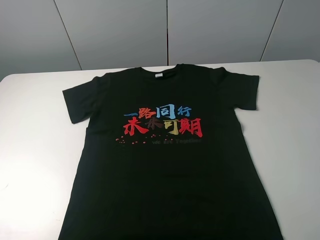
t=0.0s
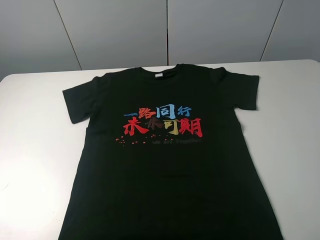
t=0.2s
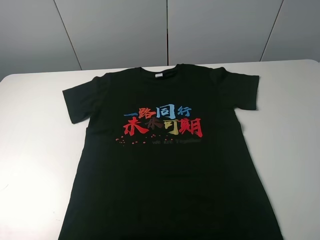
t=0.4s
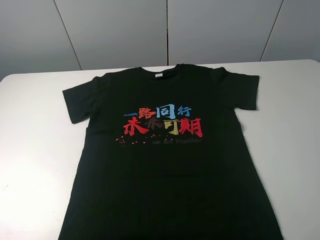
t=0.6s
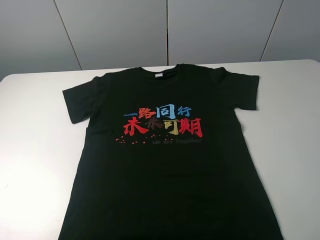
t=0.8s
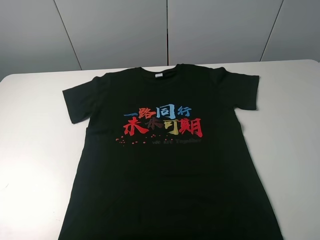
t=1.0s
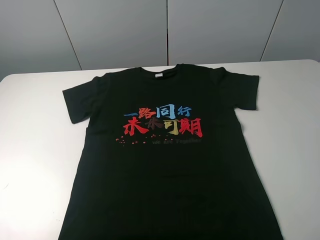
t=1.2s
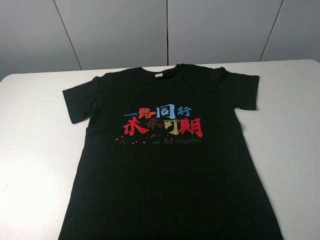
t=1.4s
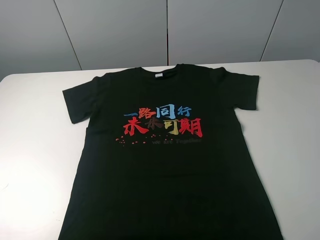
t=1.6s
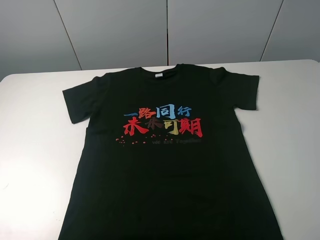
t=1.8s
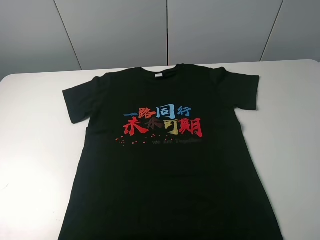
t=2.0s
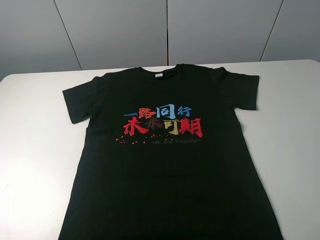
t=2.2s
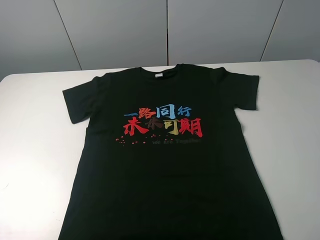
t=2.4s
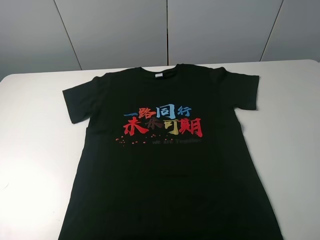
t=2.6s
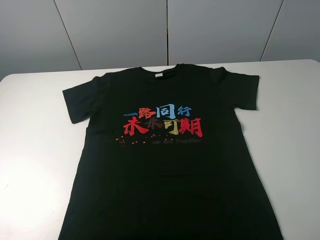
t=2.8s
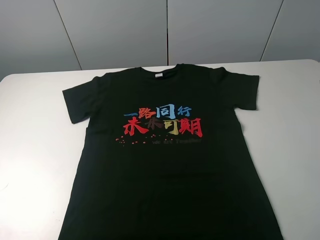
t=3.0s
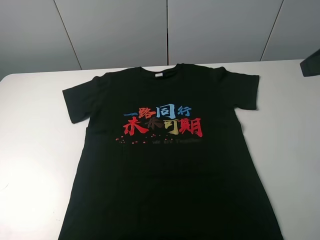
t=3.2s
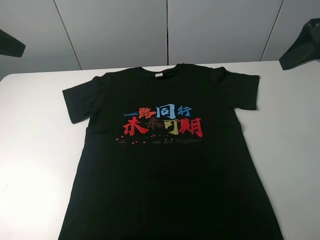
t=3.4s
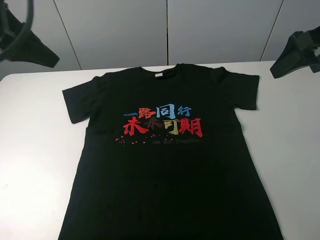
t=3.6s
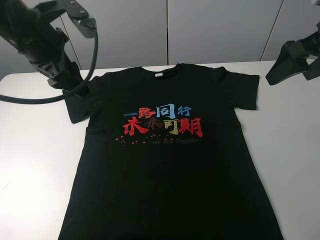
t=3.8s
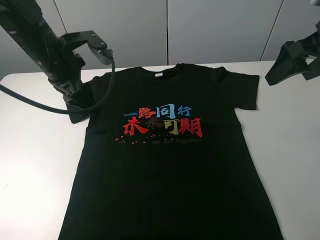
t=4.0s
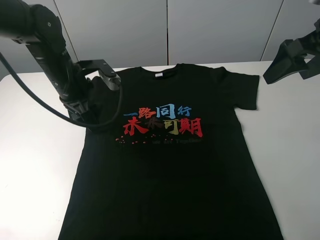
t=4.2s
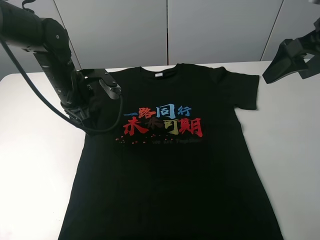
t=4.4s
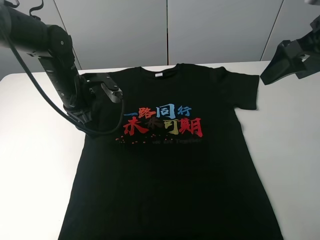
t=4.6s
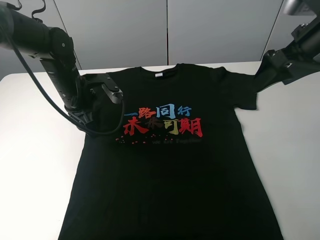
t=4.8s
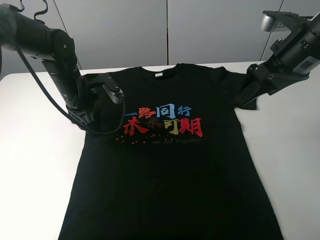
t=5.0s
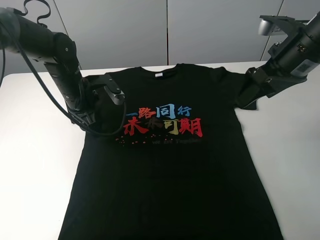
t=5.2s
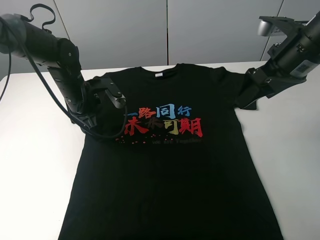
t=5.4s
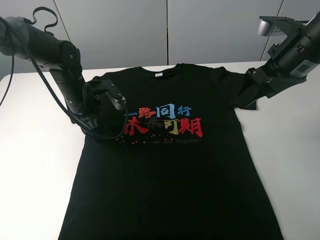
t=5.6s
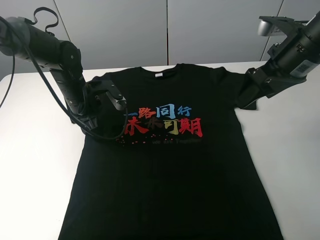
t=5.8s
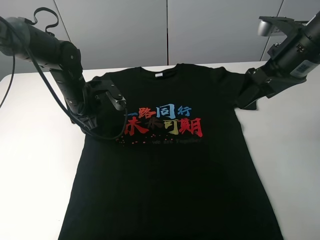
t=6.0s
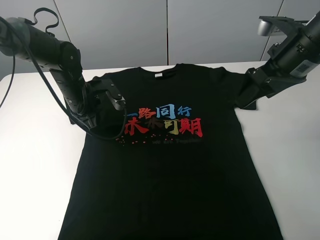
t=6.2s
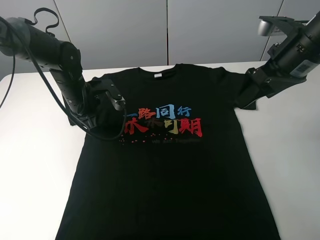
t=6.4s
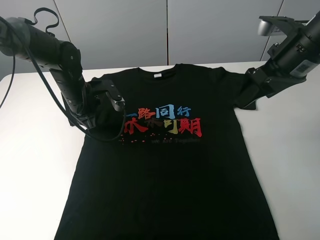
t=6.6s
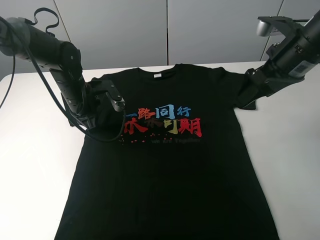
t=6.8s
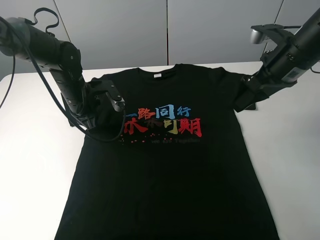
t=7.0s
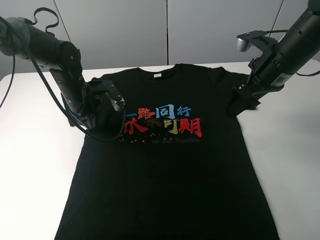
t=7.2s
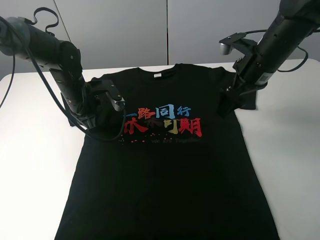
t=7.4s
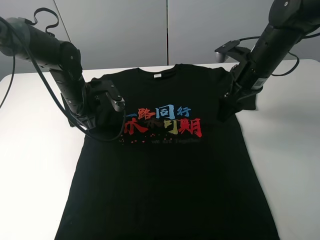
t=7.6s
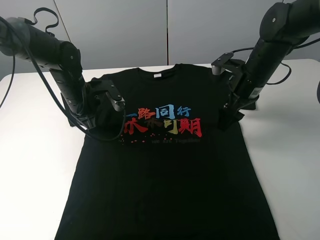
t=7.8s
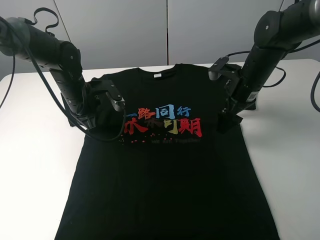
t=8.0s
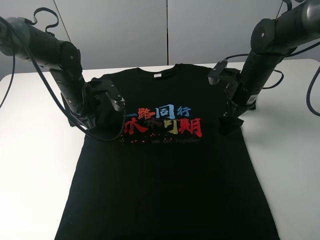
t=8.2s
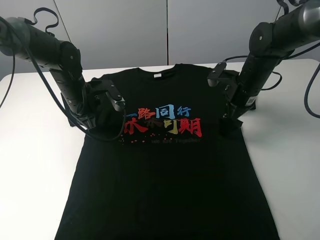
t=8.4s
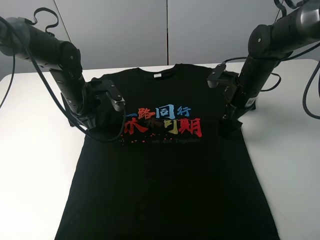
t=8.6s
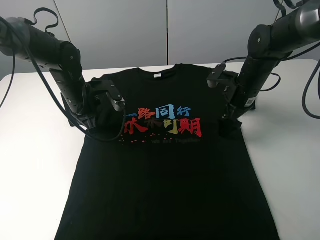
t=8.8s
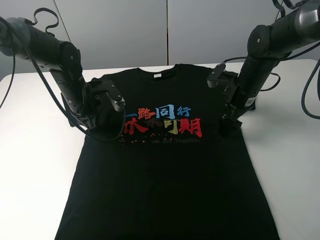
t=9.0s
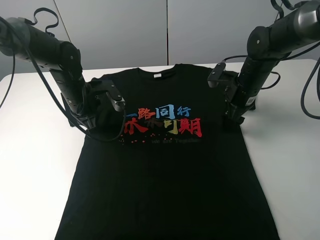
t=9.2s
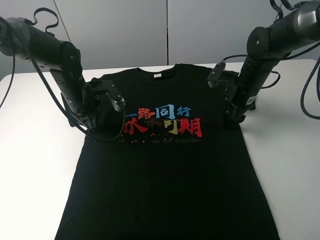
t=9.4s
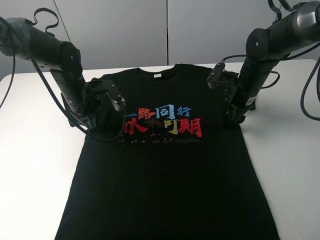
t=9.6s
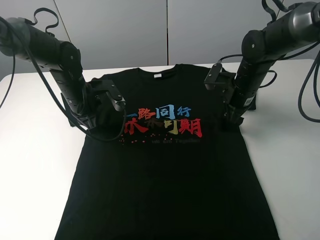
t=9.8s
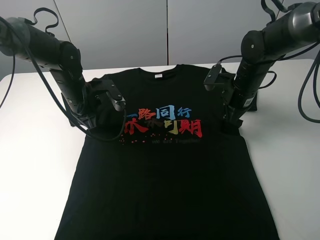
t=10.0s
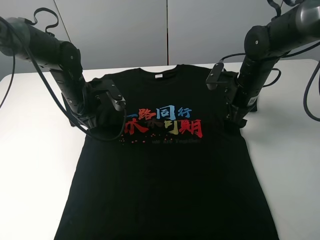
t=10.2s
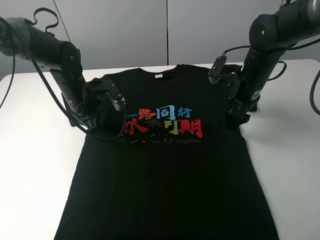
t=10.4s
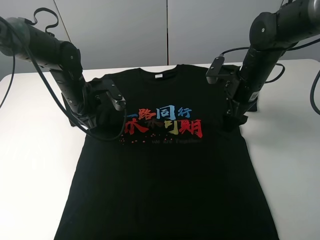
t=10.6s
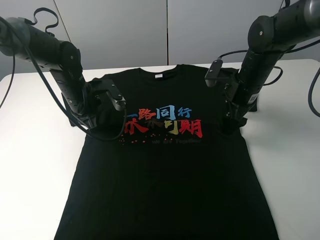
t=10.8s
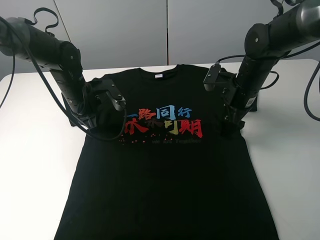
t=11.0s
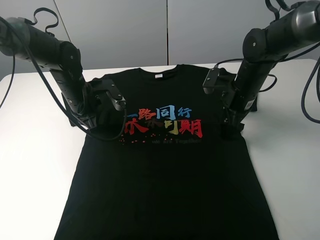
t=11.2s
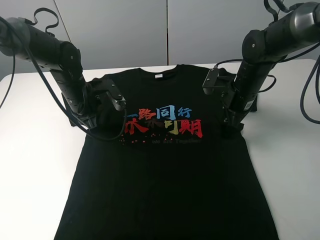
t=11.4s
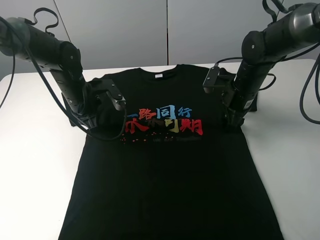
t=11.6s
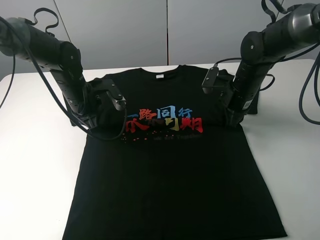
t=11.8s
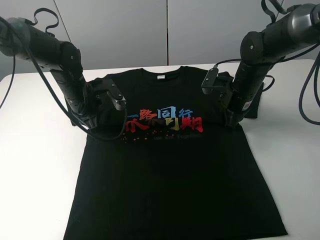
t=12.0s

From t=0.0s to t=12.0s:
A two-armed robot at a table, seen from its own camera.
Task of the whole recording: fold the clothes on the table.
Step, from t=0.0s to t=11.8s: Lift the black T-shirt with the left gripper.
From t=0.0s to t=1.6s: Neither gripper changes place.
From t=3.0s to t=4.4s: The right gripper heads forward, covering roughly 15 cm. Meanwhile the left gripper heads forward, downward and to the right, covering some 30 cm.
From t=4.4s to t=6.0s: The right gripper ends up some 5 cm from where it was.
From t=6.0s to t=7.6s: The right gripper goes approximately 10 cm downward and forward, while the left gripper closes.
From t=7.6s to t=9.0s: The right gripper goes about 5 cm downward.
From t=9.0s to t=10.4s: There are only small adjustments of the grippers.
From t=10.4s to t=12.0s: The right gripper closes.

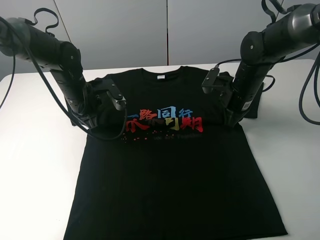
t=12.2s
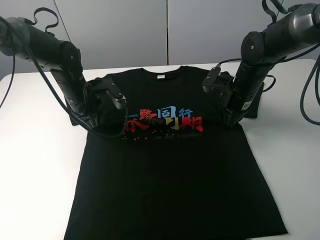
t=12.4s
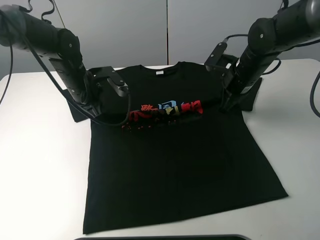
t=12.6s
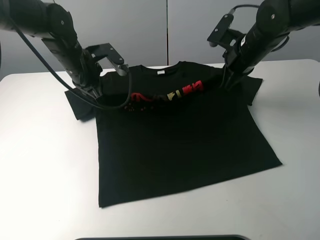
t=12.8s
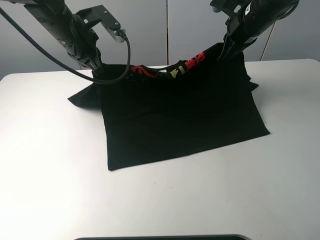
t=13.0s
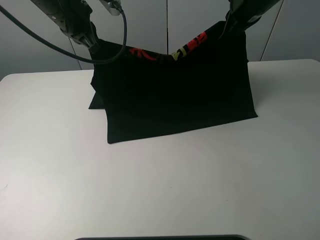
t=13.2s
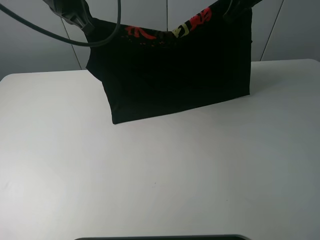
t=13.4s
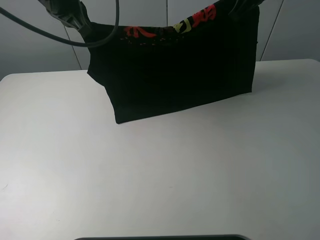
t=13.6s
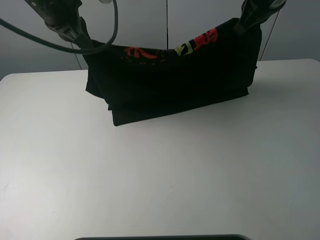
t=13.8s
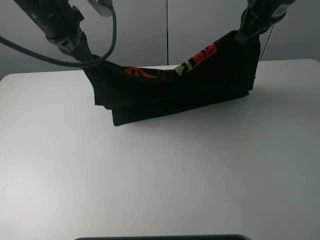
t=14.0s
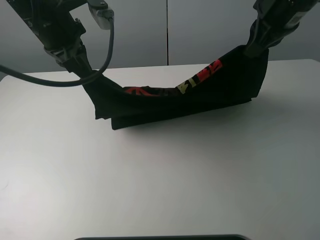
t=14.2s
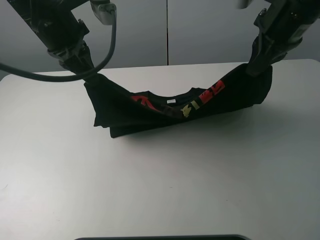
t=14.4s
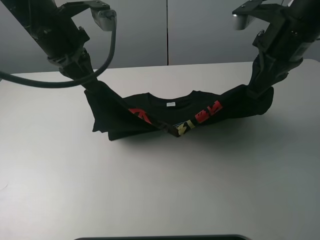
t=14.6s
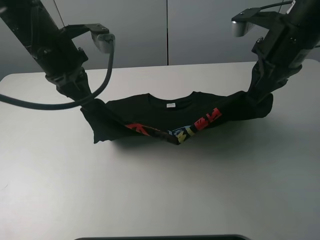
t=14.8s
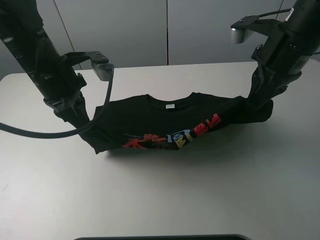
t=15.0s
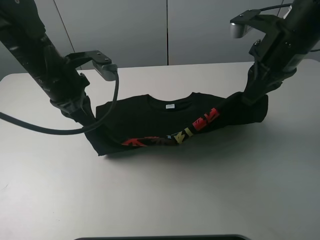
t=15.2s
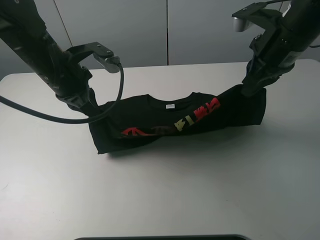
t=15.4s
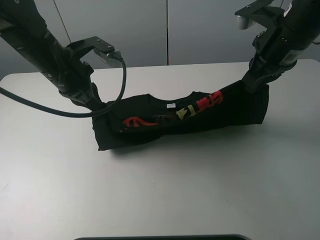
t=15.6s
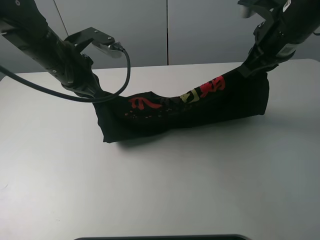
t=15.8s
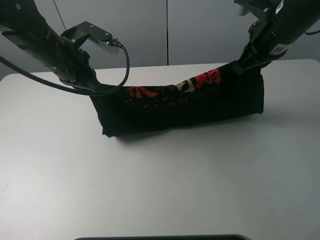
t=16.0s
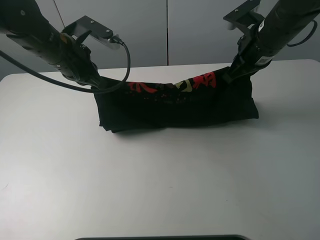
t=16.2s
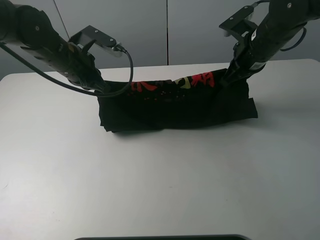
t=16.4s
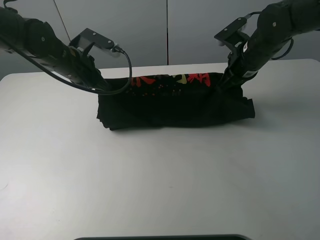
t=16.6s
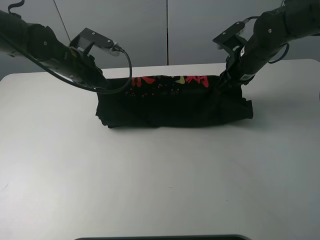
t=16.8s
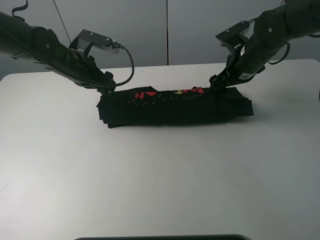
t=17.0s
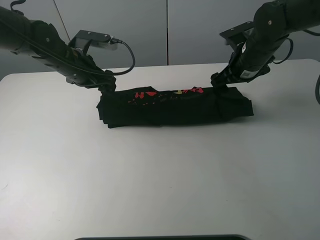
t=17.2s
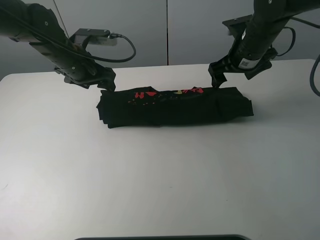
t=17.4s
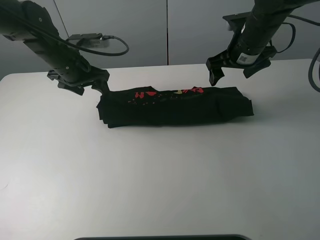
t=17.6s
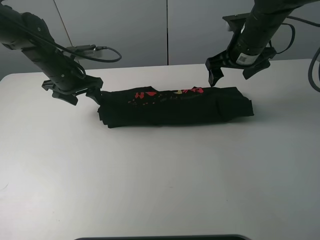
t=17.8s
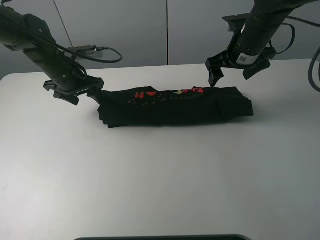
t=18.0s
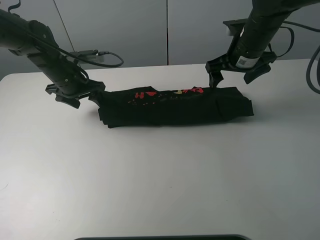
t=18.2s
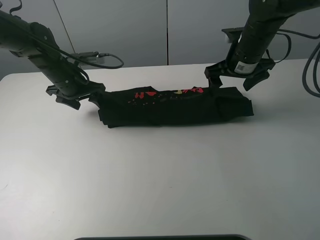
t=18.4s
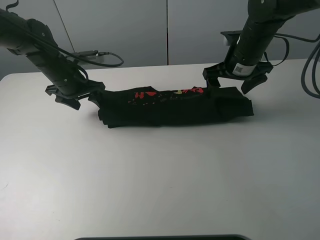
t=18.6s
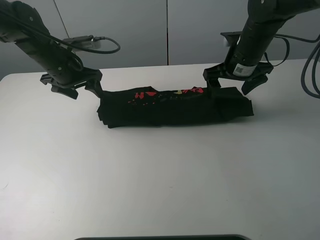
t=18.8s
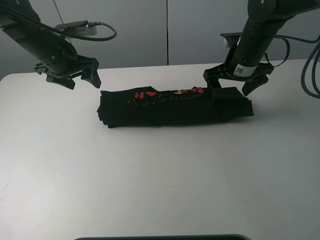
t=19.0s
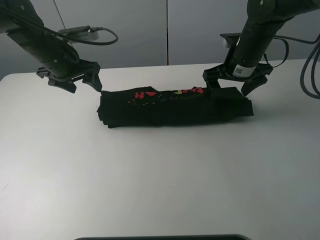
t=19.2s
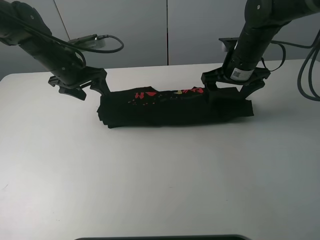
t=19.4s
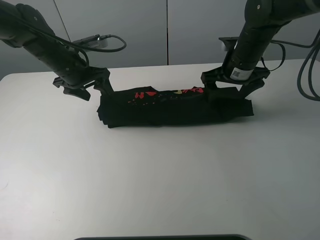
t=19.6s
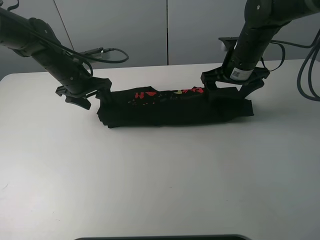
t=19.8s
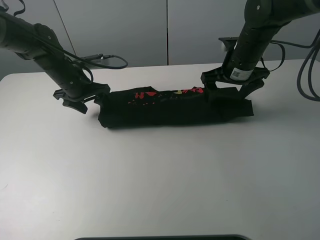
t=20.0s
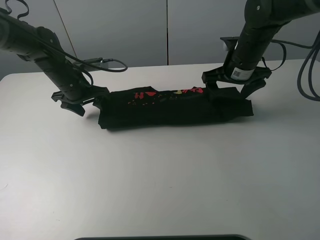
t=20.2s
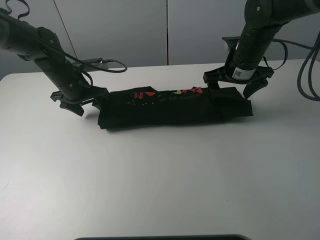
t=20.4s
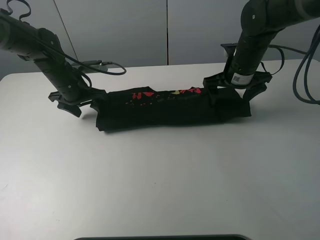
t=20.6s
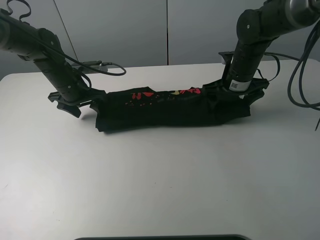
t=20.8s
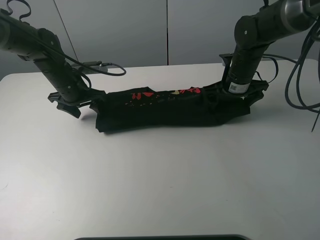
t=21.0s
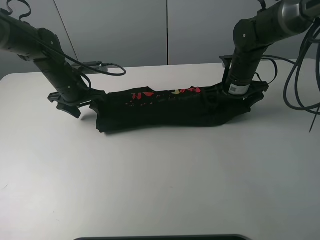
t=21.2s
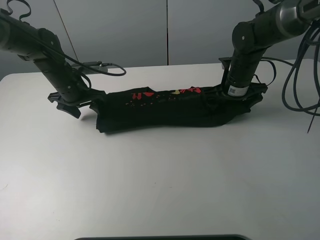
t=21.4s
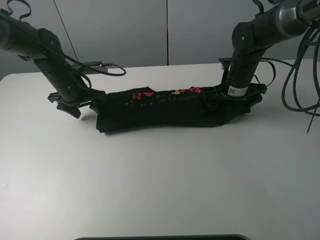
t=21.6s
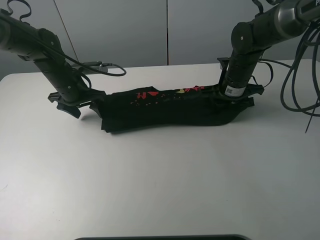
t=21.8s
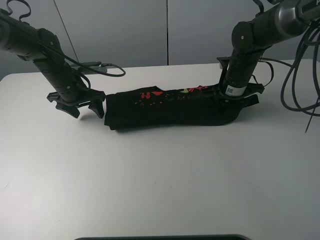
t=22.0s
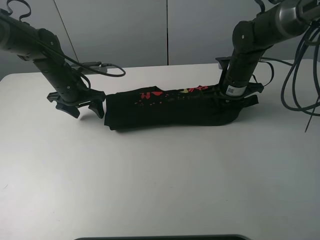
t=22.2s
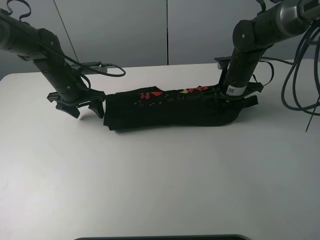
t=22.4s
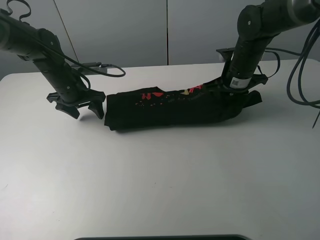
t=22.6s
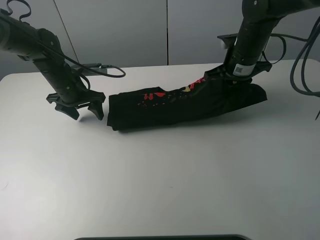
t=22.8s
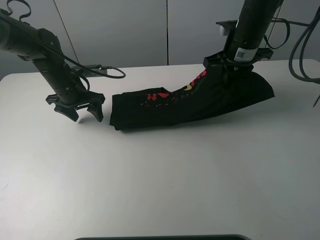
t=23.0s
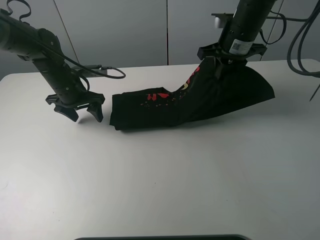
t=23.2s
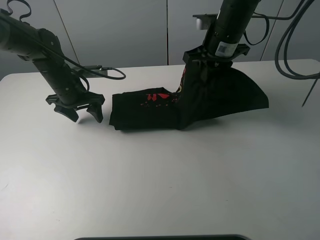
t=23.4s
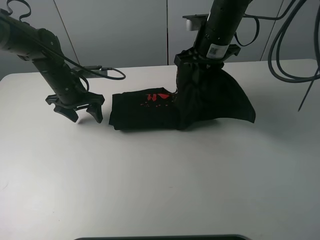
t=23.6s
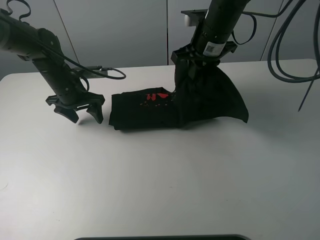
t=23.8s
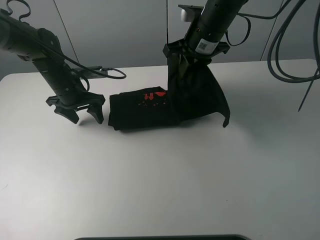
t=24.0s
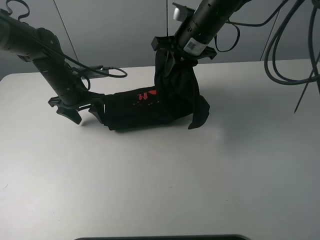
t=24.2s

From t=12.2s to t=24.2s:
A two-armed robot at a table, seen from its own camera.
Task of the whole recording: fold the clothes on the table.
Step, from t=12.2s to t=17.2s: Fold the black T-shirt downward with the left gripper.
Step, from t=17.4s to t=22.0s: Grasp the black T-shirt with the right gripper.
From t=12.2s to t=13.8s: The grippers both shift upward by approximately 20 cm.
From t=13.8s to t=15.2s: The left gripper moves downward and backward, about 10 cm. The right gripper travels backward by roughly 10 cm.
From t=15.2s to t=16.6s: The left gripper heads forward, covering about 10 cm; the right gripper travels downward and forward by roughly 15 cm.
From t=16.6s to t=18.2s: The right gripper opens up; the left gripper changes place by roughly 5 cm, and opens up.
From t=19.8s to t=21.2s: The right gripper moves downward, roughly 5 cm.
From t=21.2s to t=22.6s: The right gripper closes up.
From t=22.6s to t=24.2s: The right gripper moves to the left and upward, approximately 10 cm.
